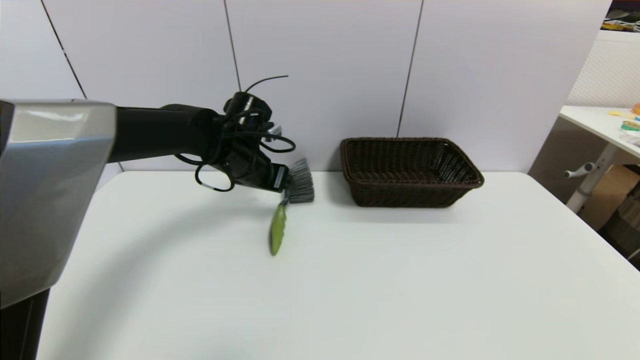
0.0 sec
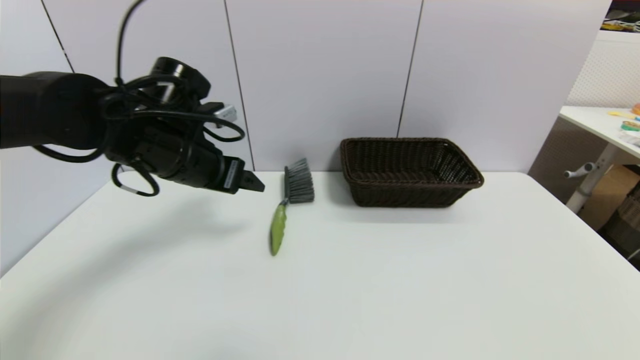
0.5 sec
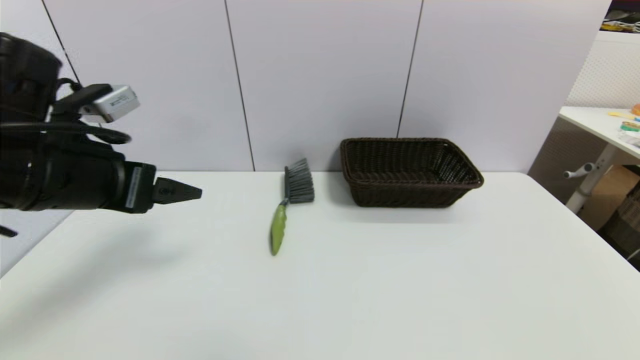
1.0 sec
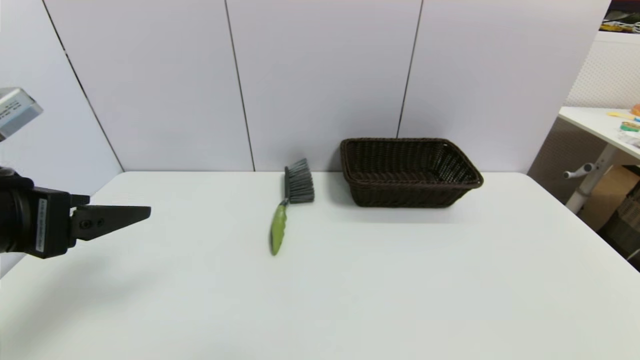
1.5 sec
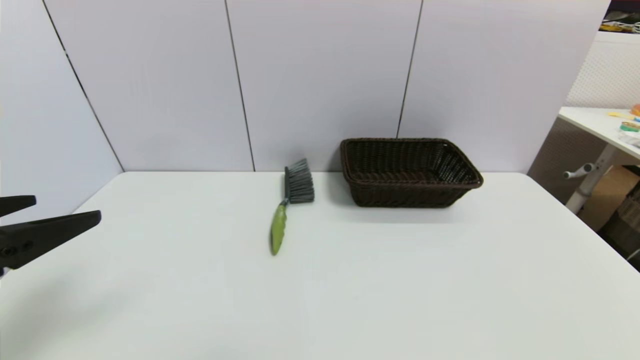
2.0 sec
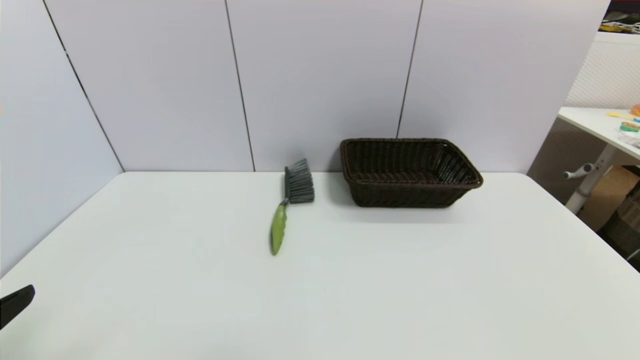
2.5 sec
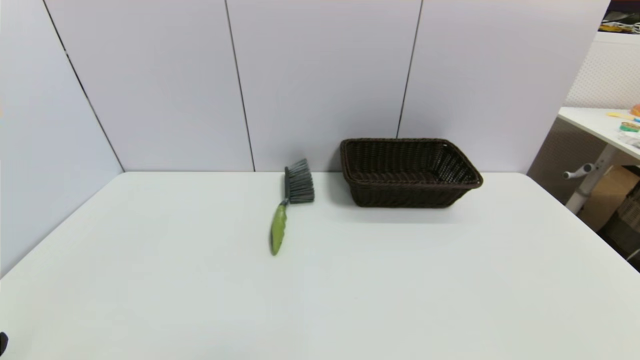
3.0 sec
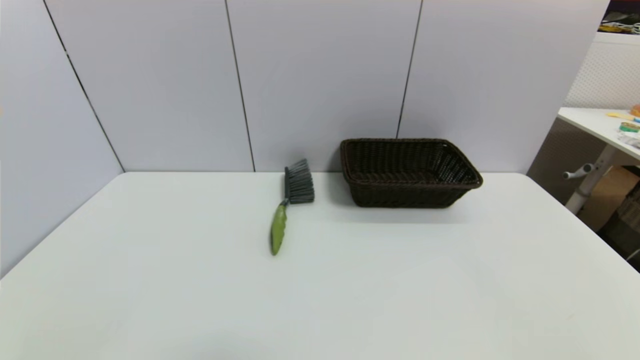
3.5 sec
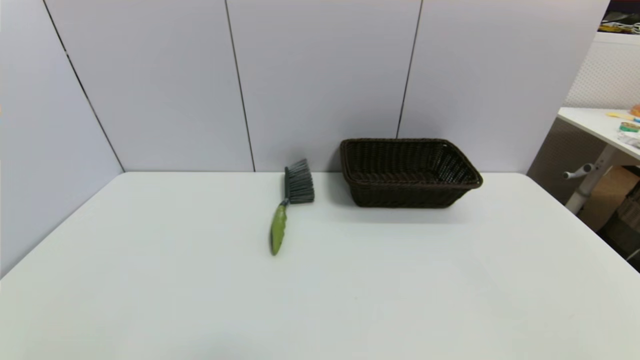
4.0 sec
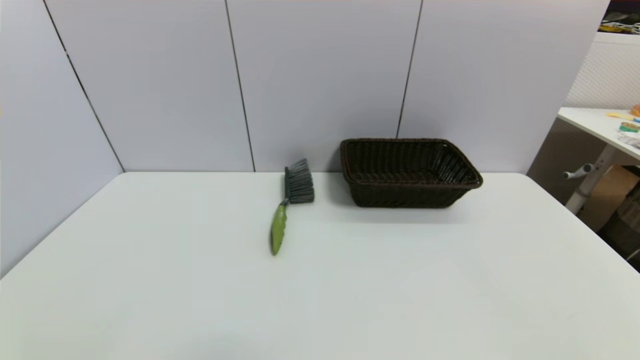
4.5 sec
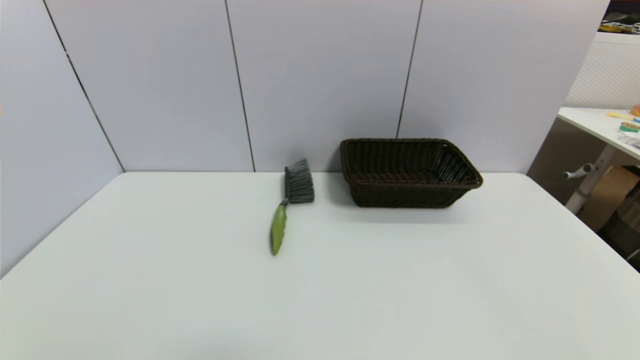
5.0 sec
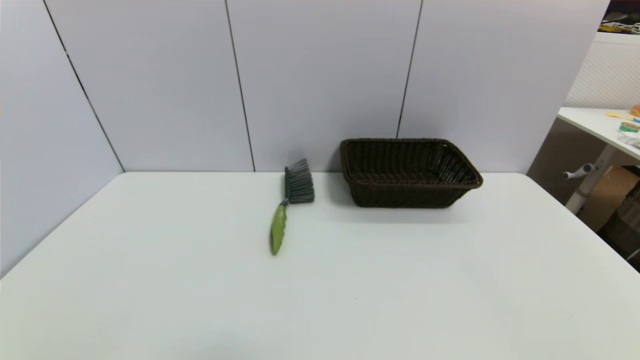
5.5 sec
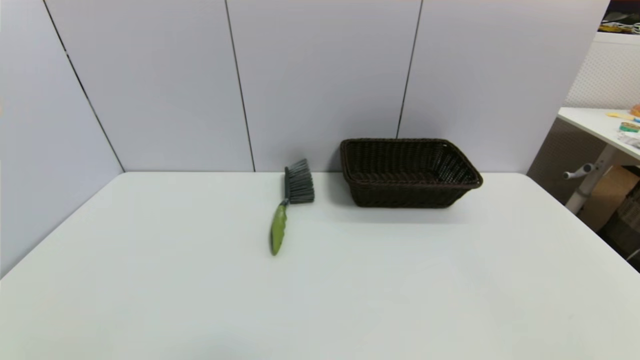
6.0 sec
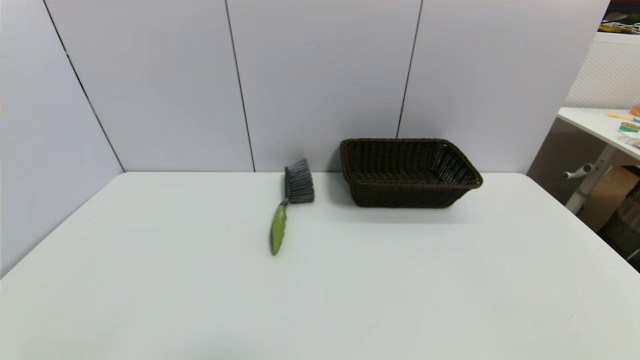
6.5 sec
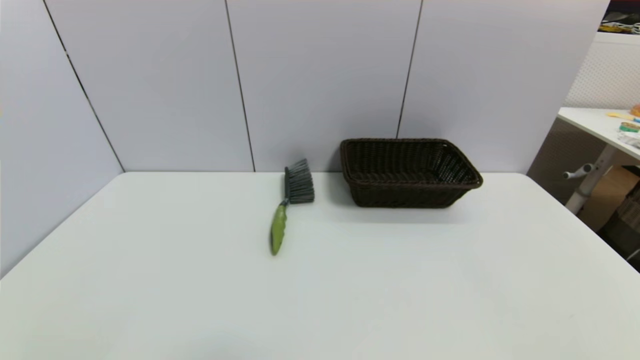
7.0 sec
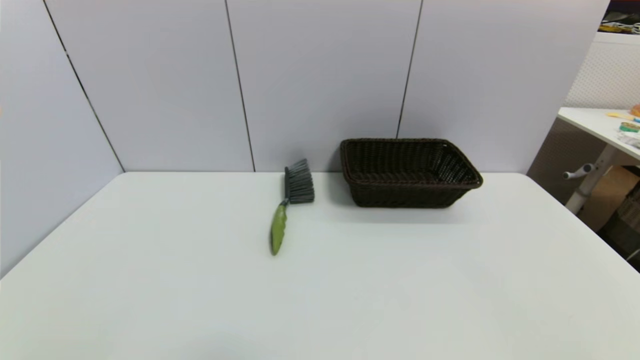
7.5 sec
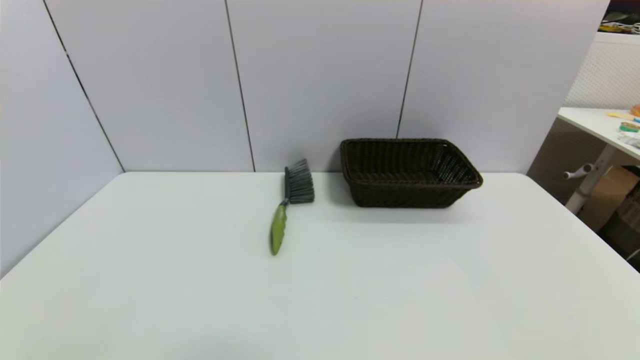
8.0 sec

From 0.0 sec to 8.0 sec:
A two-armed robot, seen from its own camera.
Task of the whole recording: put the brush in the designated position.
From 0.0 sec to 2.0 sec: The left gripper is displaced backward and to the left by about 35 cm.
From 2.0 sec to 4.0 sec: The left gripper is displaced downward and backward by some 25 cm.
From 6.0 sec to 8.0 sec: Both grippers stay about where they are.

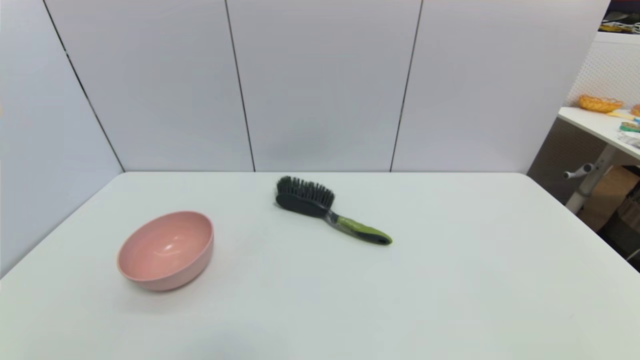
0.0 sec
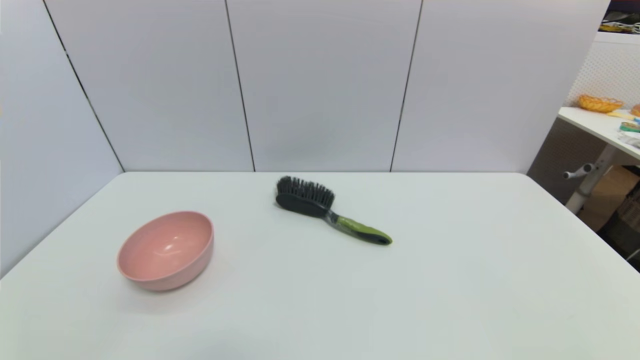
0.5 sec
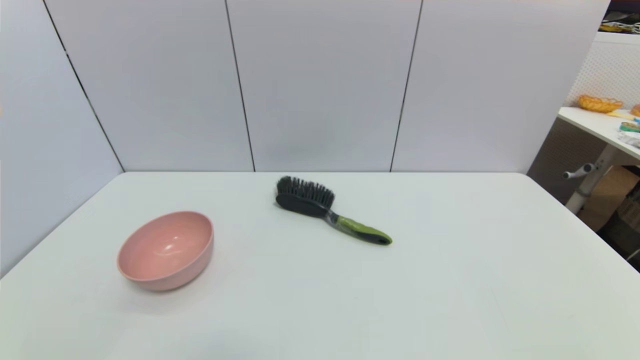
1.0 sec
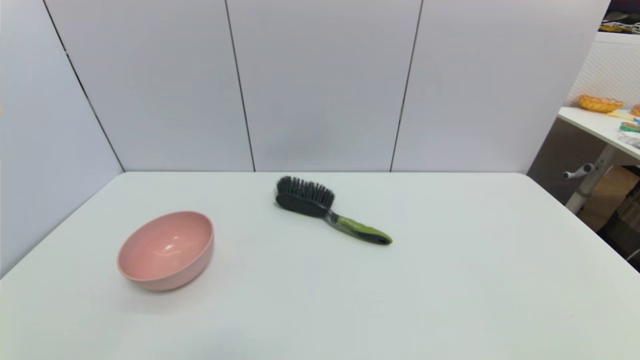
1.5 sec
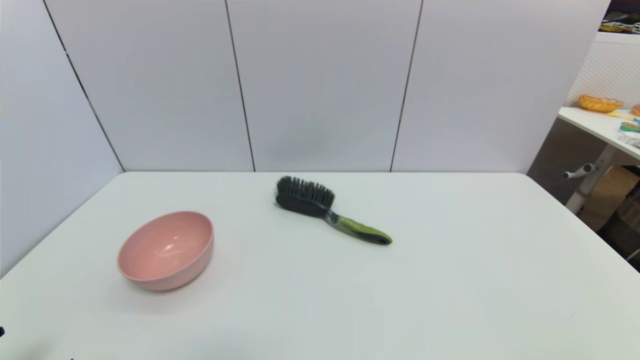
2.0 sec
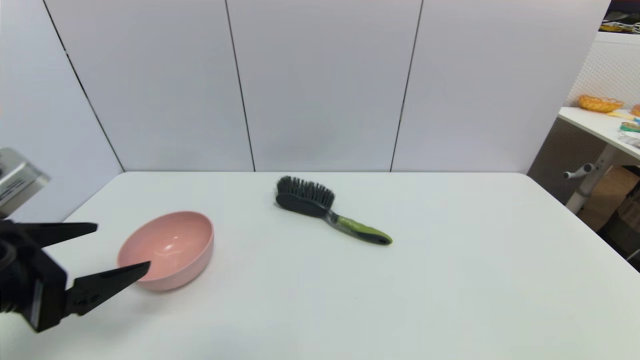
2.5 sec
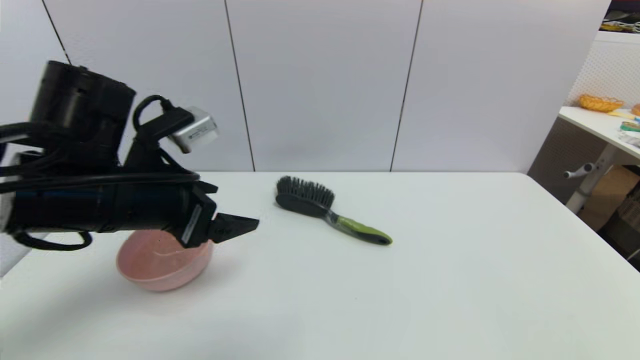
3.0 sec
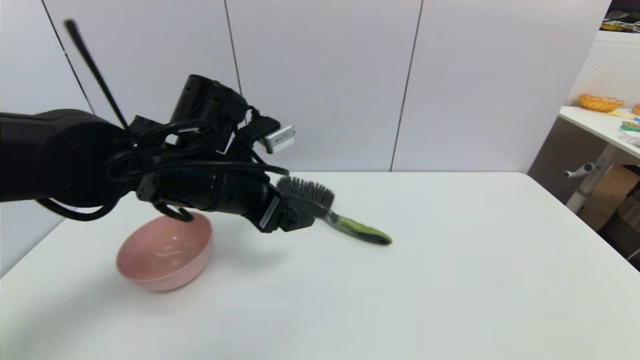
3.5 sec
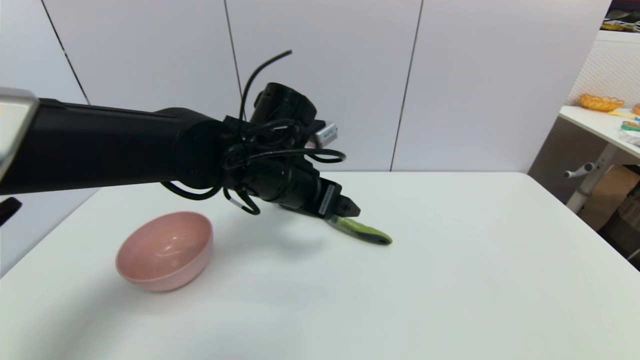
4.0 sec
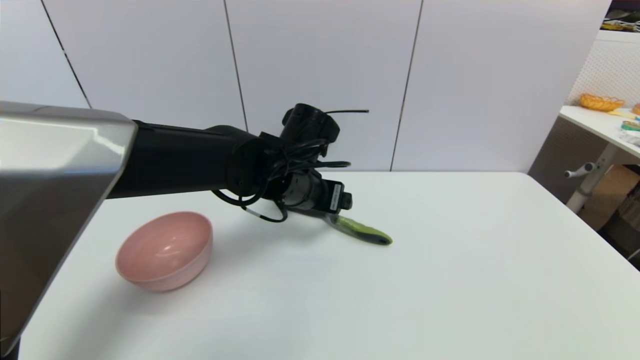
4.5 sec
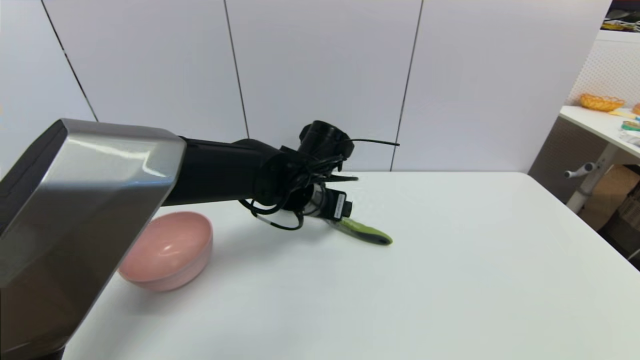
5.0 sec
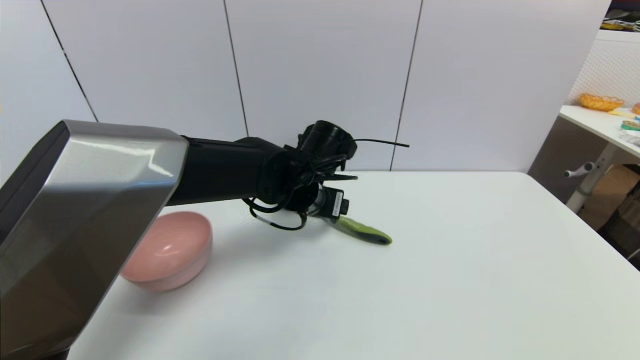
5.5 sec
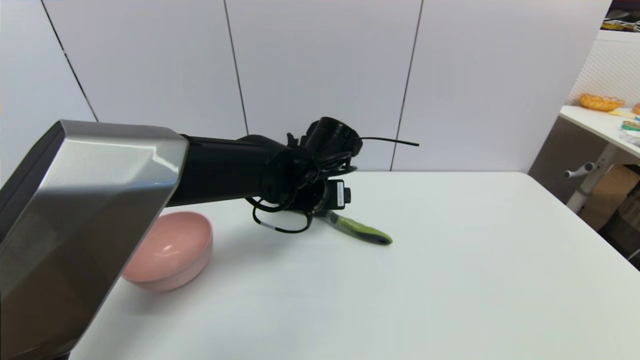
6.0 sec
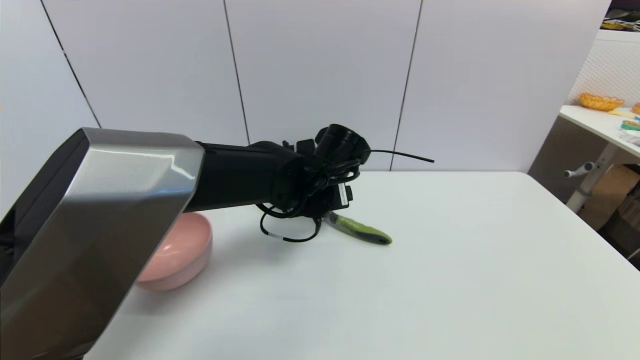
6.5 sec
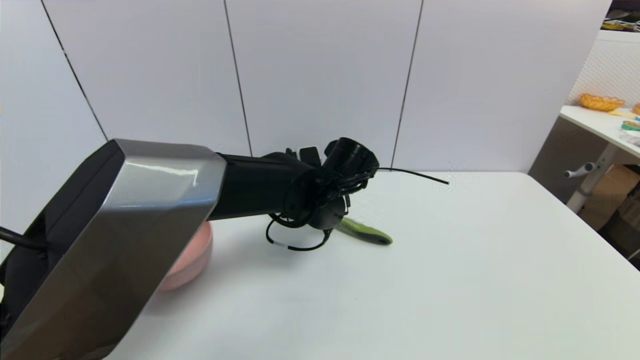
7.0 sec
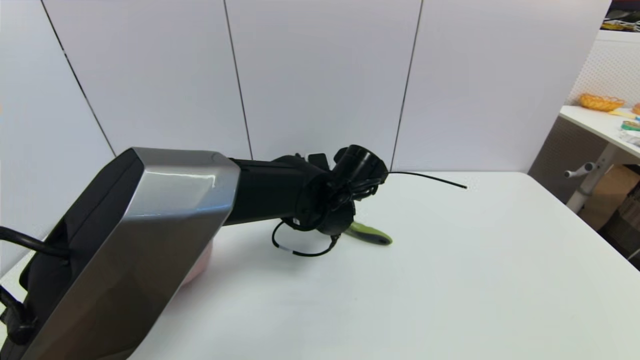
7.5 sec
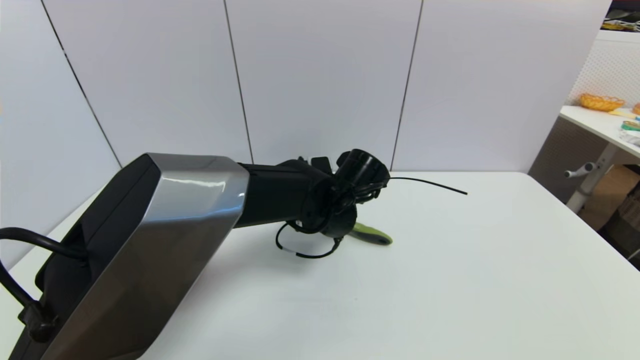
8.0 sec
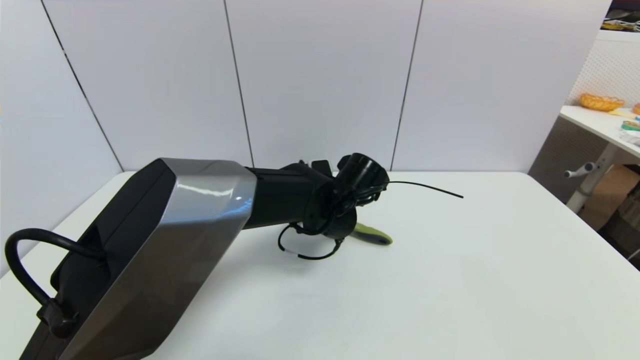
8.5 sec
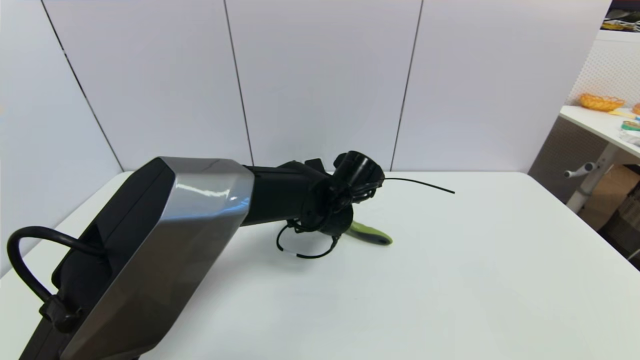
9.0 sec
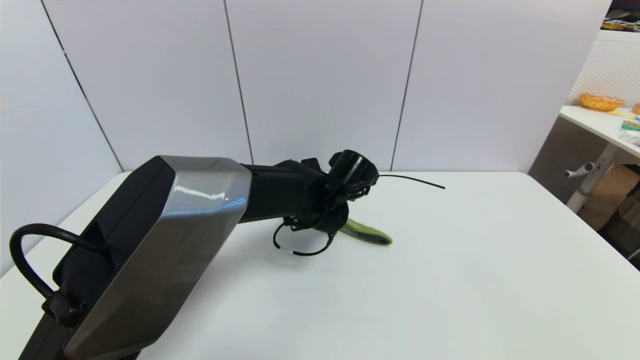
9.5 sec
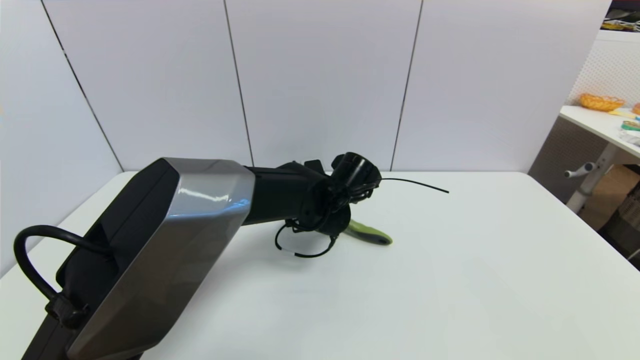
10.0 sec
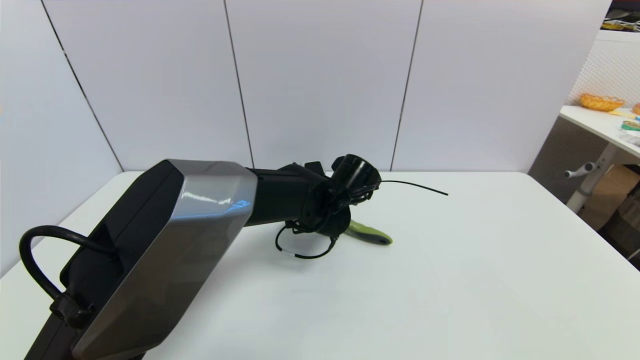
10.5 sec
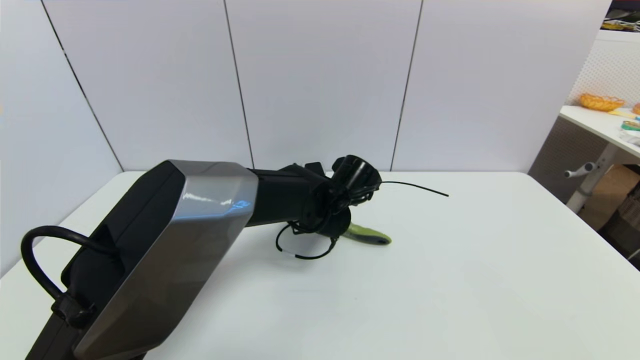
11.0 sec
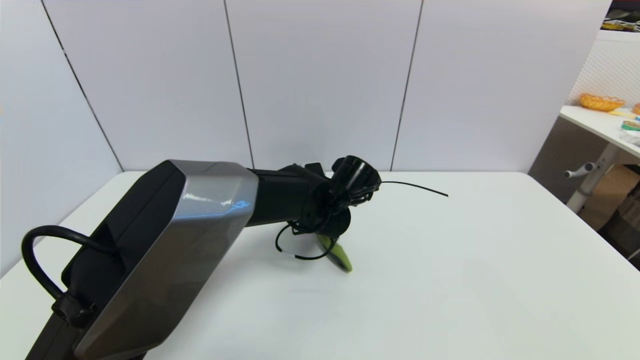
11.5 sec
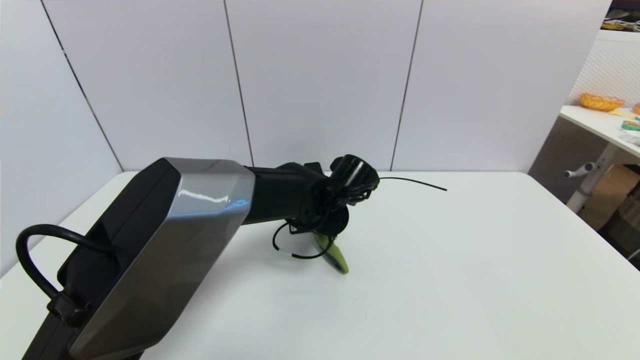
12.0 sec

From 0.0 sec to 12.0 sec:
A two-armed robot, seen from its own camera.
Task of the whole recording: put the brush in the designated position.
From 2.0 sec to 4.0 sec: The left gripper is displaced forward and to the right by some 40 cm.
From 4.0 sec to 6.0 sec: The left gripper shifts by roughly 5 cm.
From 6.0 sec to 8.0 sec: The left gripper moves roughly 5 cm.
From 8.0 sec to 10.0 sec: The grippers stay close to where they were, moving slightly.
From 10.0 sec to 12.0 sec: The left gripper closes.
